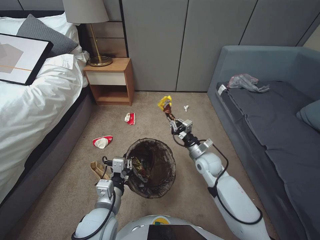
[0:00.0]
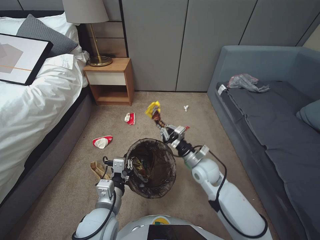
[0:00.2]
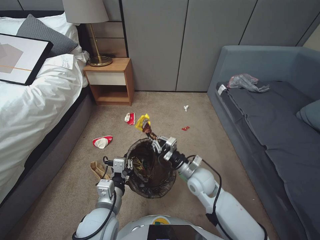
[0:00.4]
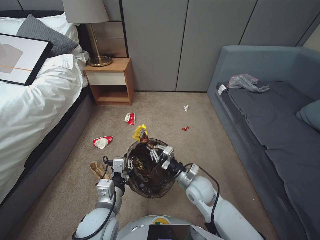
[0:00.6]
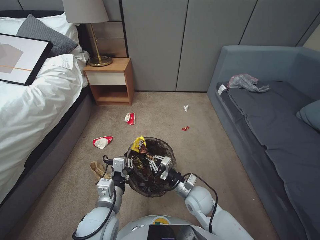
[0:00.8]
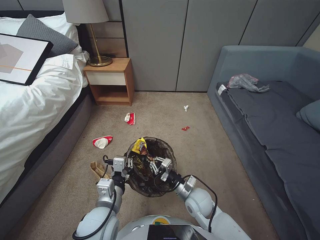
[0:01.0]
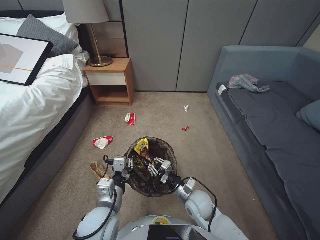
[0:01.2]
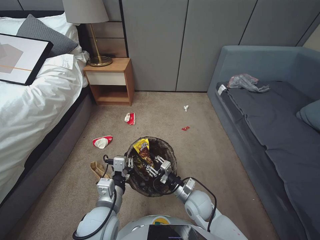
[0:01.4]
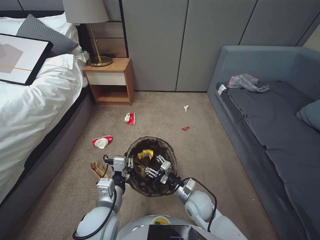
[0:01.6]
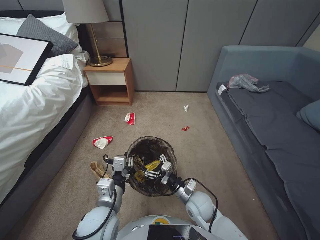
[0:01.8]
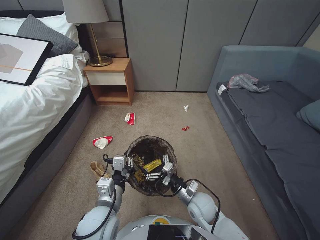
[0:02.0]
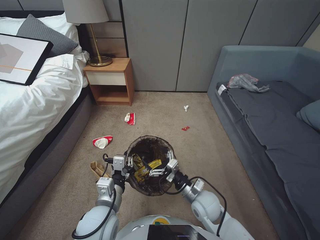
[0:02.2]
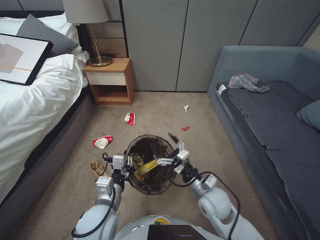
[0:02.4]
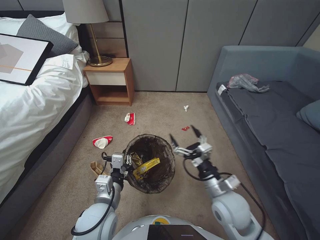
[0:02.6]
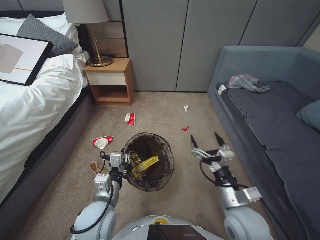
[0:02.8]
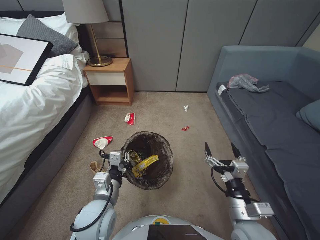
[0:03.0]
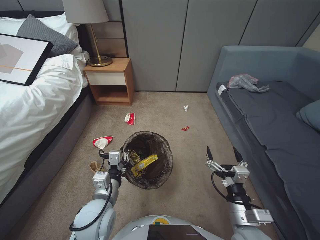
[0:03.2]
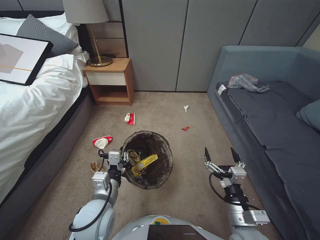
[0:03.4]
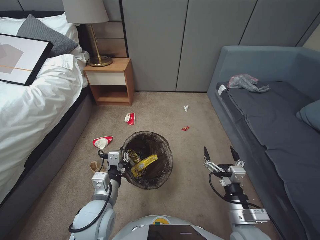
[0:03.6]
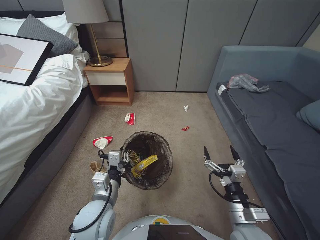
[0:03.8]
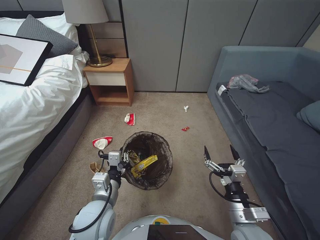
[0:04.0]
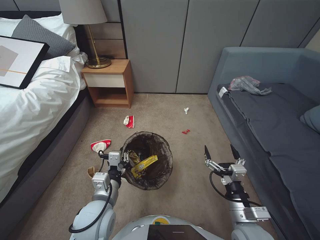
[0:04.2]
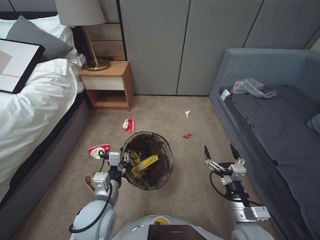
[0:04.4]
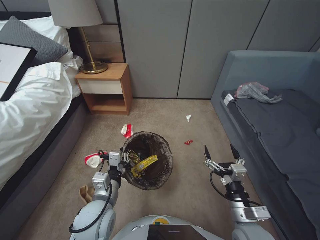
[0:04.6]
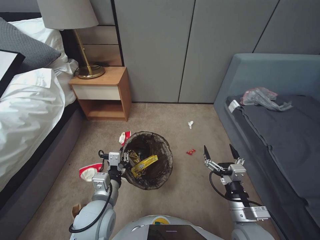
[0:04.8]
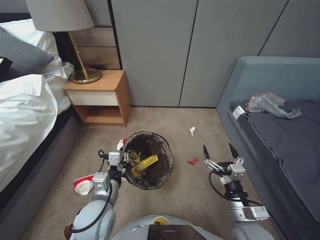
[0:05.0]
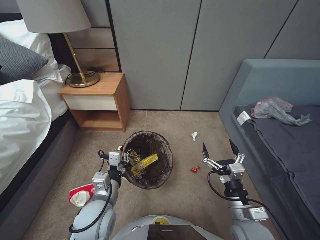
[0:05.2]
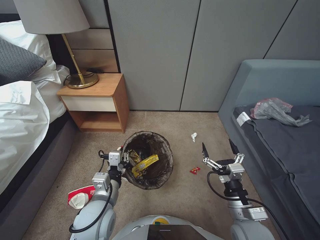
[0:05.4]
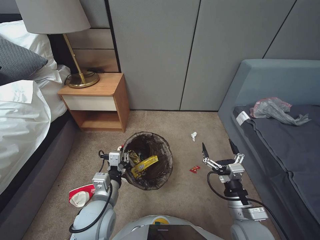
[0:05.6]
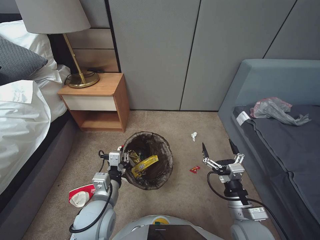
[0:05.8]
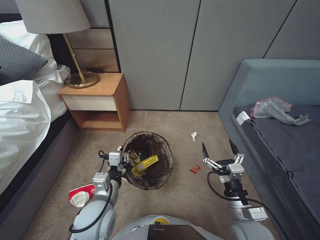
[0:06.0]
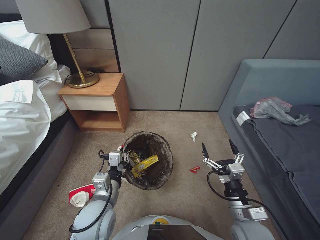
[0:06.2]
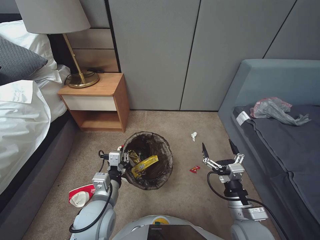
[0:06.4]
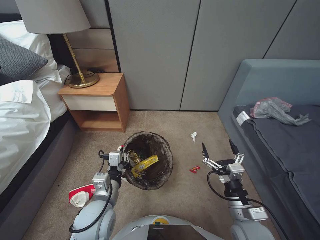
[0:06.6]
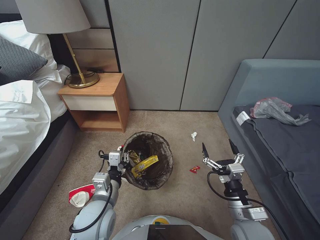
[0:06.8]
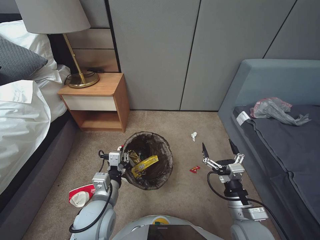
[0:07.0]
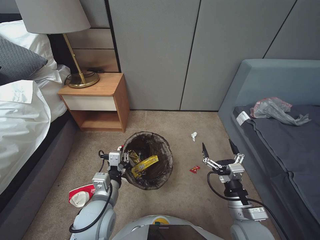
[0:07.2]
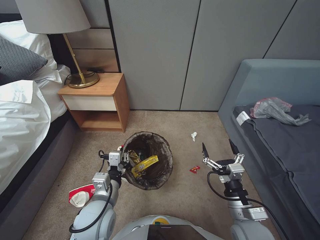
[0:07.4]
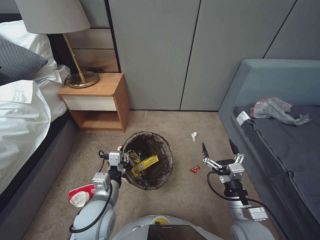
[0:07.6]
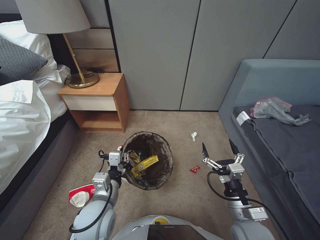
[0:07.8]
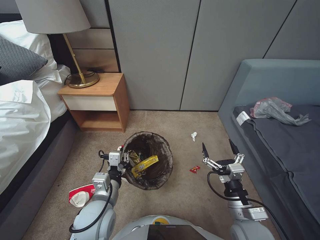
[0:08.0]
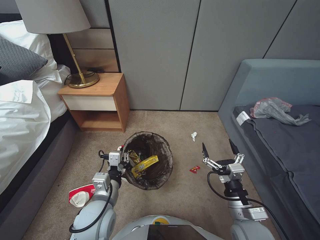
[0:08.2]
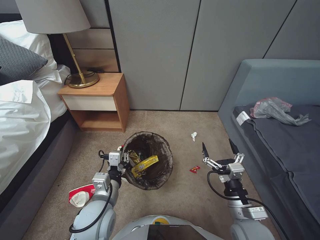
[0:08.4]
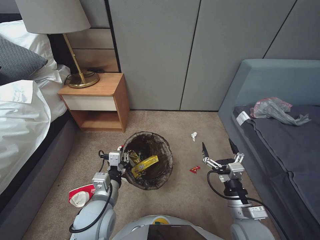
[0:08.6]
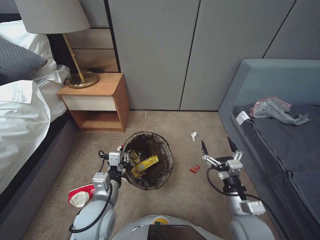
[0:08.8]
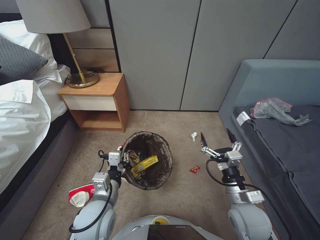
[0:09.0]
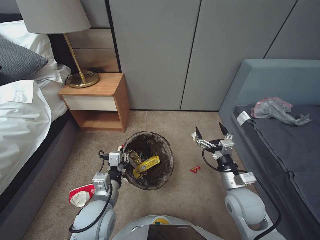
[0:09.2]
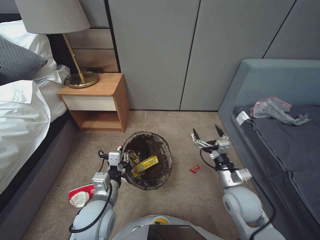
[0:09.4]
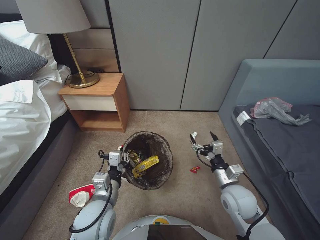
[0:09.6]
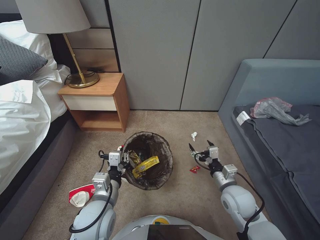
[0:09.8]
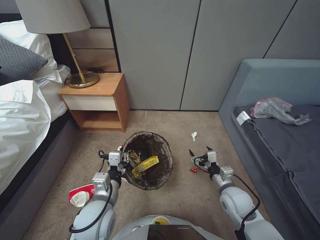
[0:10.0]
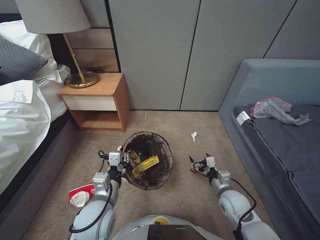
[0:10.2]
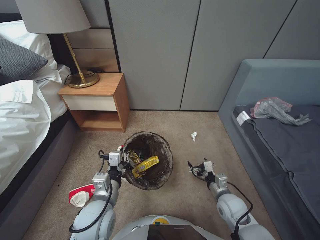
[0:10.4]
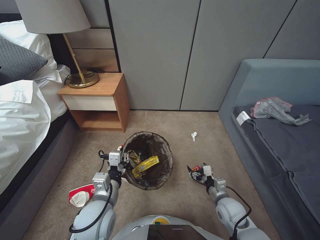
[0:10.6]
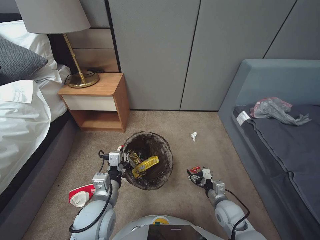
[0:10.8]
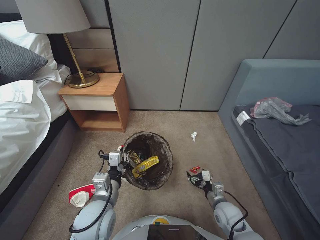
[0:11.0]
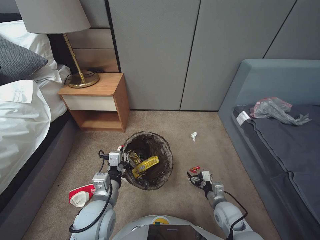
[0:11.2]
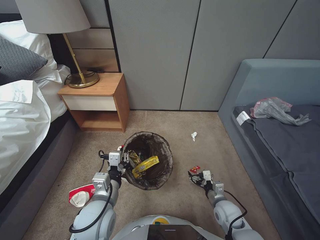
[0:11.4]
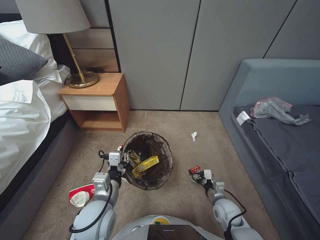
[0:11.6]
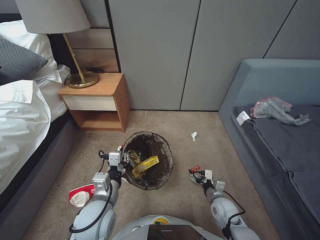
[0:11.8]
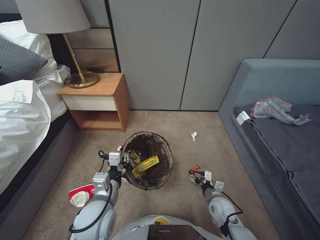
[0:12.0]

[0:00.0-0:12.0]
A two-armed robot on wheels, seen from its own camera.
Task of the whole recording: Pick up the trash bin, then pick up the garbage from the floor and place it into the trash bin.
0:00.0 to 0:01.6: The right gripper heads backward and to the left, covering approximately 15 cm, and opens its fingers.
0:01.6 to 0:03.0: The right gripper is displaced upward, backward and to the right by some 20 cm, and opens up.
0:03.0 to 0:04.4: There are only small adjustments of the grippers.
0:06.0 to 0:09.0: Neither gripper changes place.
0:09.0 to 0:10.4: The right gripper heads forward and downward, covering some 10 cm.
0:10.4 to 0:12.0: The right gripper shifts approximately 10 cm downward.

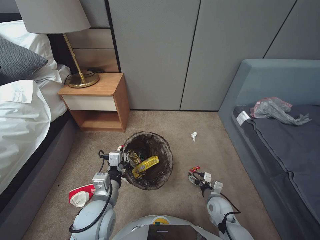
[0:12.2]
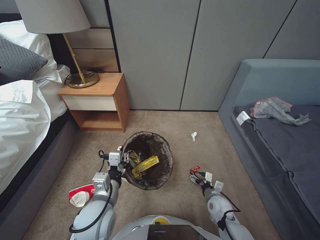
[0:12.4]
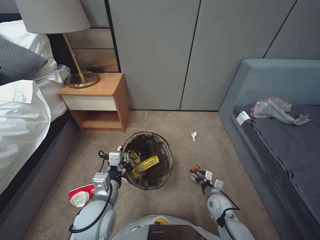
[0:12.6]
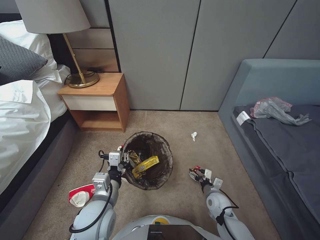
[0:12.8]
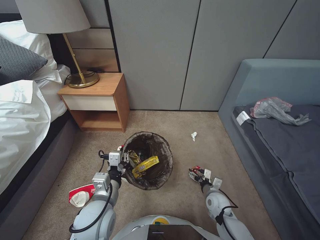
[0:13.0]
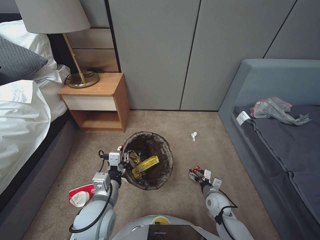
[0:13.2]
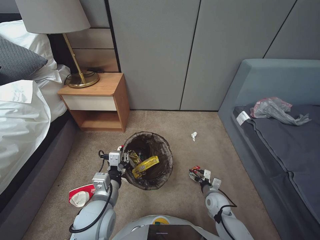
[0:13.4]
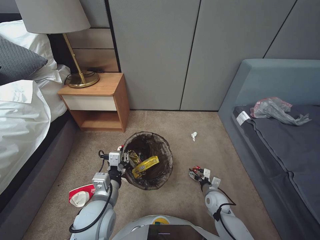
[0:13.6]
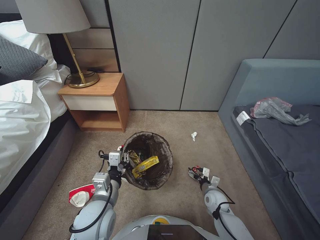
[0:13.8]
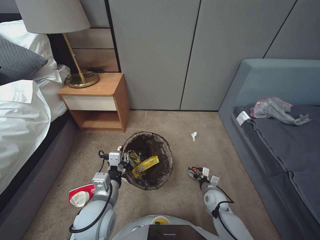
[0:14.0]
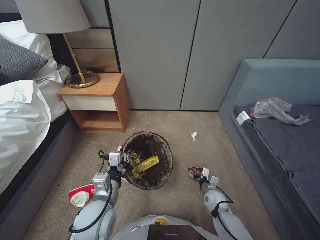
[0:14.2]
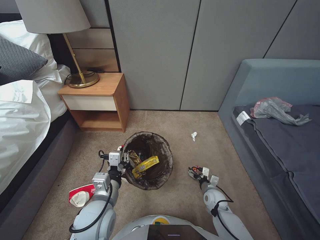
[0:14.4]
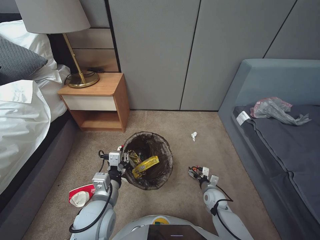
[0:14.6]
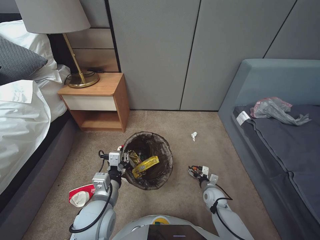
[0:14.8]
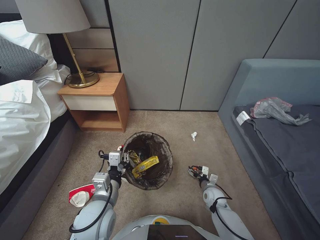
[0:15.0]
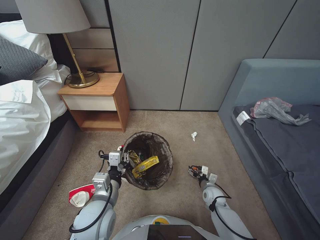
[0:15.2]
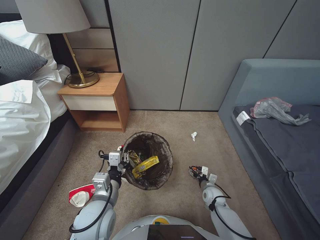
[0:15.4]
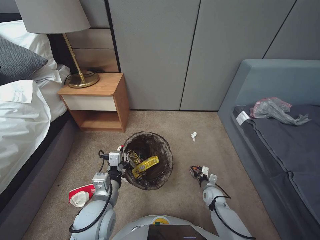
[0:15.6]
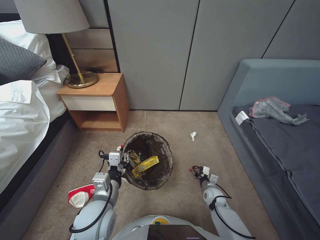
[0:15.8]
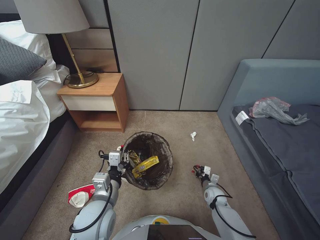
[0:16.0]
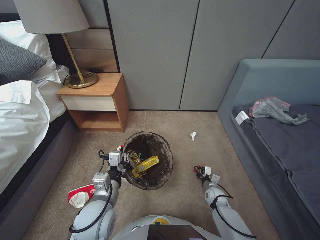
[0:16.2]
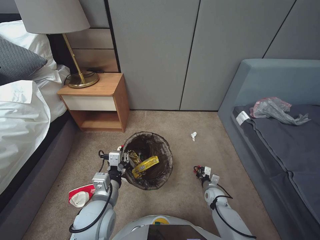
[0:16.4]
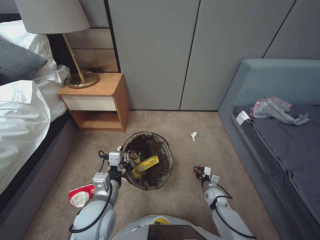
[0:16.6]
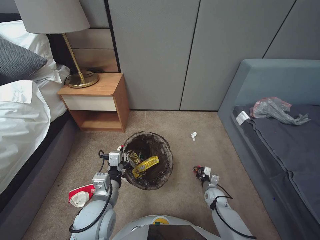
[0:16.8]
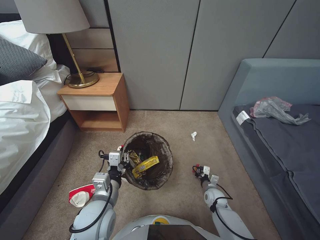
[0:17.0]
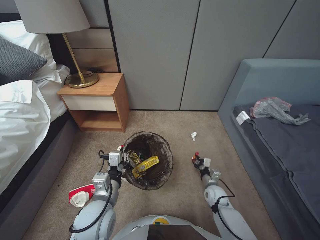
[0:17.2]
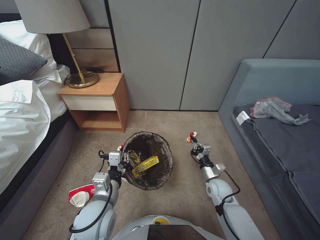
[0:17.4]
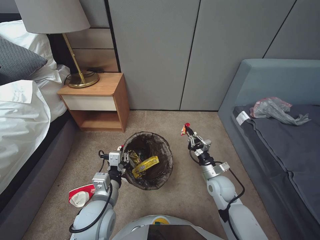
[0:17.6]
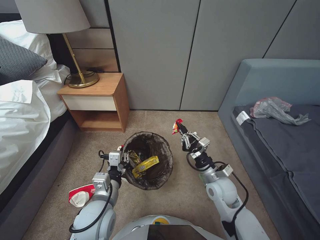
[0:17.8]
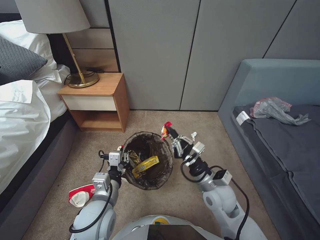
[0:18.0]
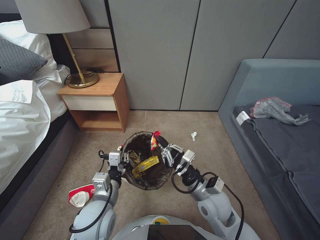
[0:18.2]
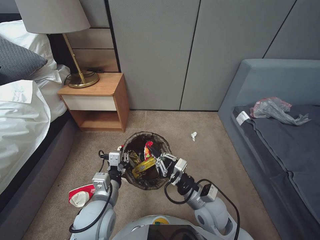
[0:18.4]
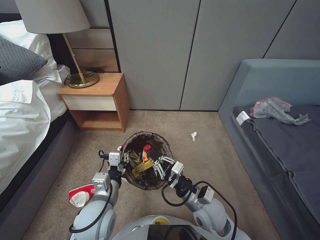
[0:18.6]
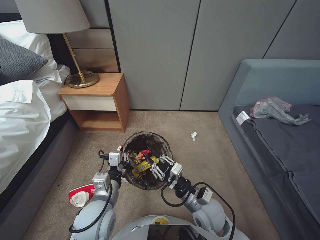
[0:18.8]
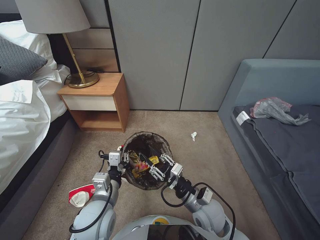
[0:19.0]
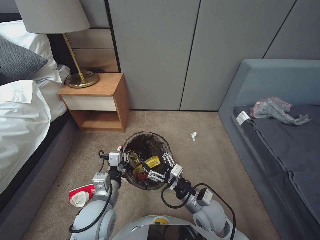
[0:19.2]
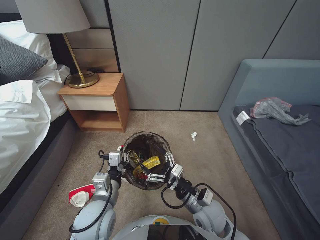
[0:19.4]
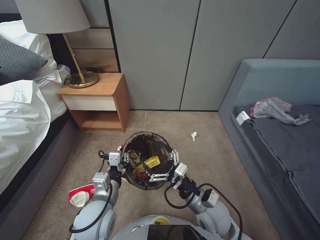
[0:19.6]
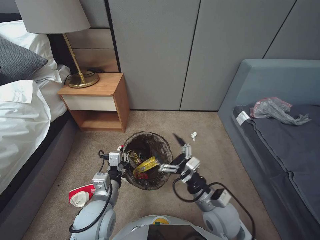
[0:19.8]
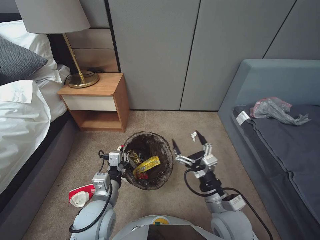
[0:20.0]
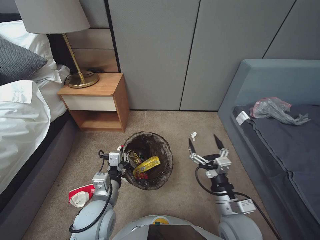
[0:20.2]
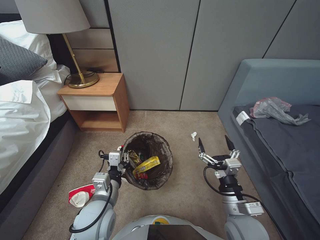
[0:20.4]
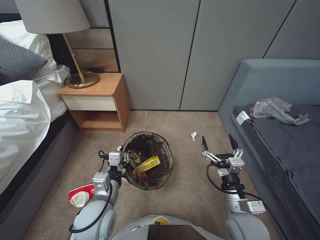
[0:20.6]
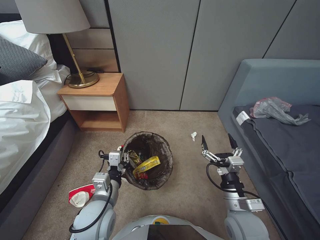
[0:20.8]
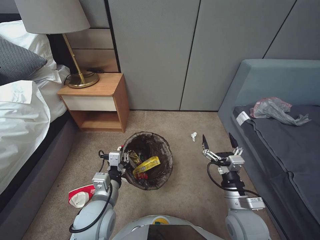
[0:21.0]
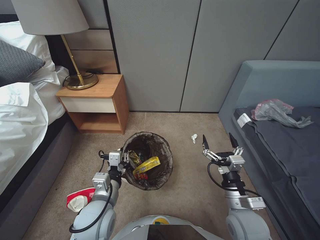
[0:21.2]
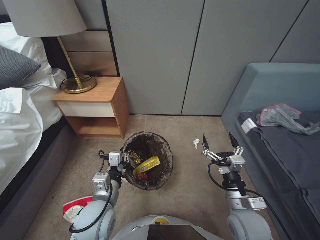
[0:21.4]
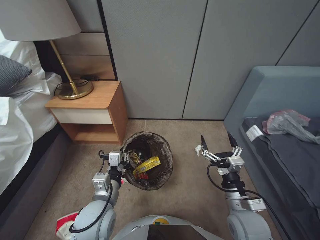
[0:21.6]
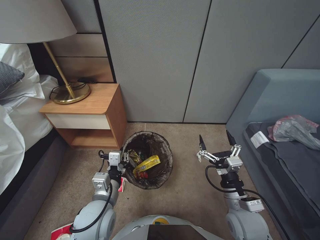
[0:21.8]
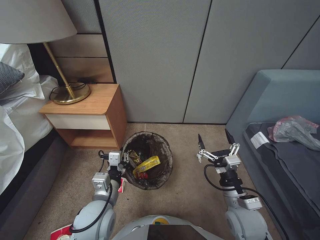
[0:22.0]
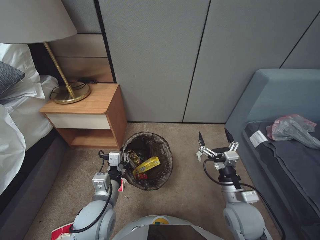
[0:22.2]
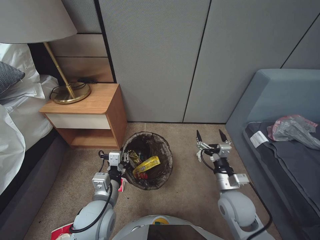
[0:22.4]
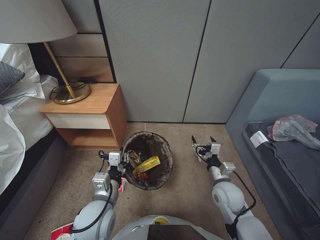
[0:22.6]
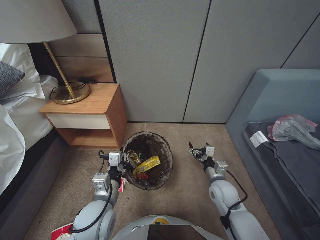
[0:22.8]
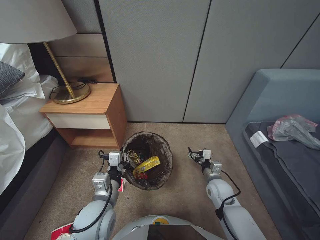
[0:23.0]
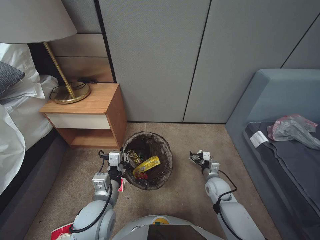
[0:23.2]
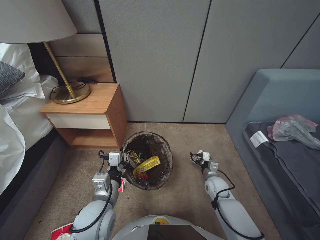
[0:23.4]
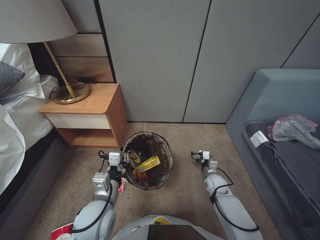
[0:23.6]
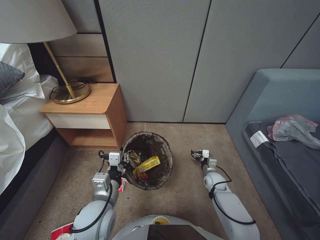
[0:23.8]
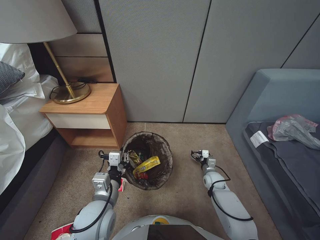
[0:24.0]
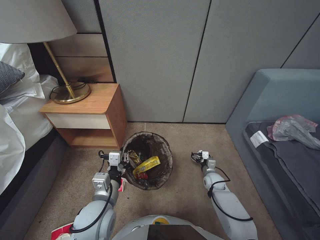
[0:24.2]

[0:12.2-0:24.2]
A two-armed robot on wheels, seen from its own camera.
Task of the whole recording: Pick up the trash bin, then pick up the garbage from the floor and place it into the trash bin.
0:12.2 to 0:13.8: The grippers make only small movements.
0:13.8 to 0:15.2: The grippers stay close to where they were, moving slightly.
0:15.2 to 0:16.6: The right gripper closes.
0:16.6 to 0:18.2: The right gripper is displaced upward by about 25 cm.
0:18.2 to 0:19.8: The right gripper ends up some 5 cm from where it was, and opens up.
0:19.8 to 0:21.2: The right gripper shifts some 5 cm to the right.
0:21.2 to 0:22.6: The right gripper is displaced forward by roughly 5 cm.
0:22.6 to 0:24.2: The right gripper shifts roughly 20 cm downward and forward.
